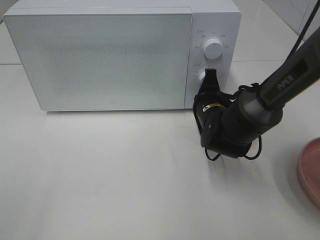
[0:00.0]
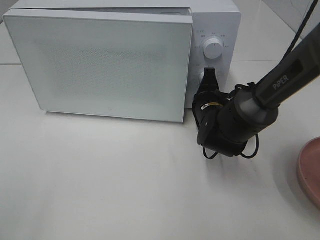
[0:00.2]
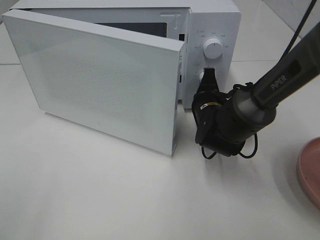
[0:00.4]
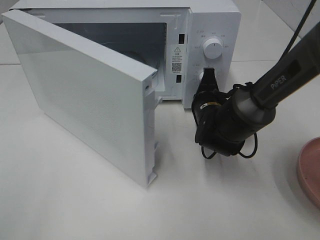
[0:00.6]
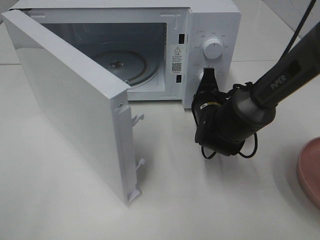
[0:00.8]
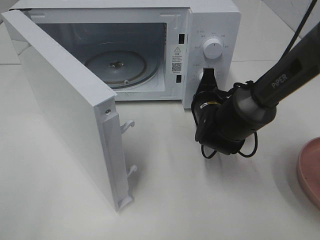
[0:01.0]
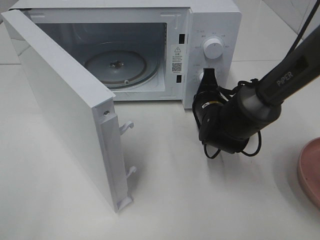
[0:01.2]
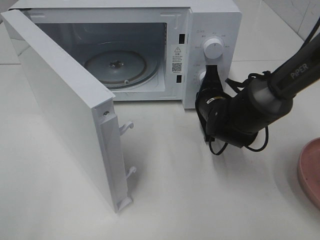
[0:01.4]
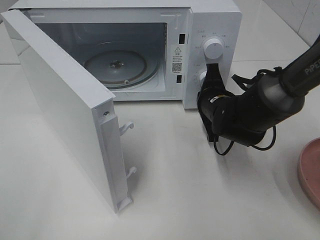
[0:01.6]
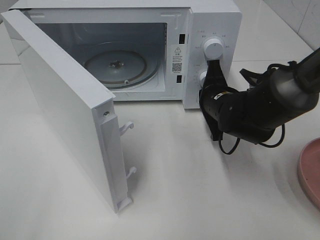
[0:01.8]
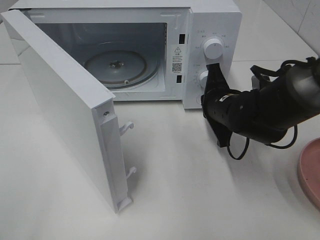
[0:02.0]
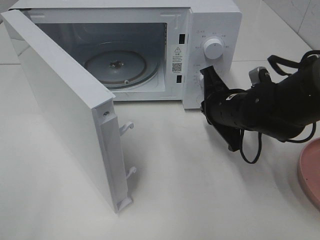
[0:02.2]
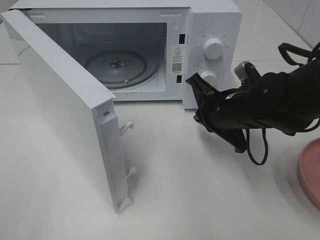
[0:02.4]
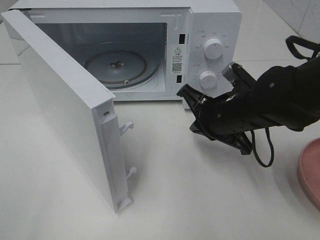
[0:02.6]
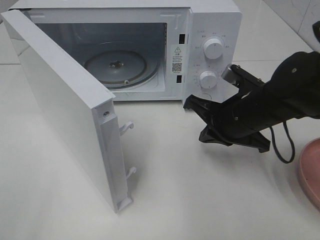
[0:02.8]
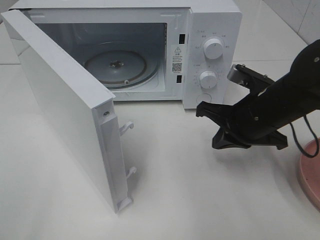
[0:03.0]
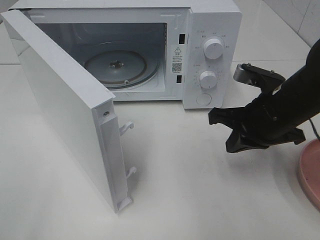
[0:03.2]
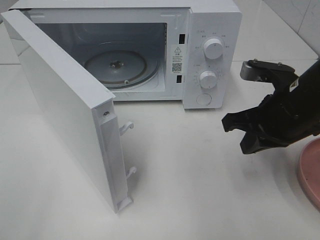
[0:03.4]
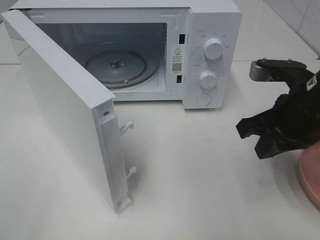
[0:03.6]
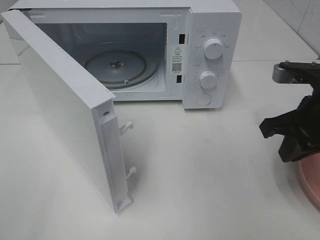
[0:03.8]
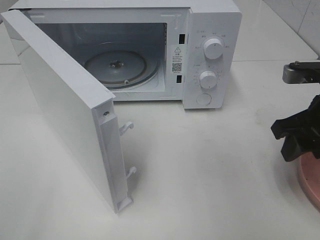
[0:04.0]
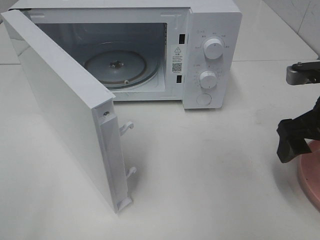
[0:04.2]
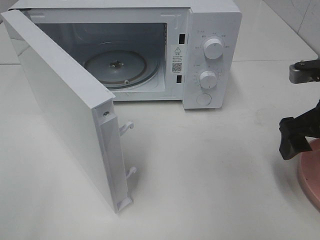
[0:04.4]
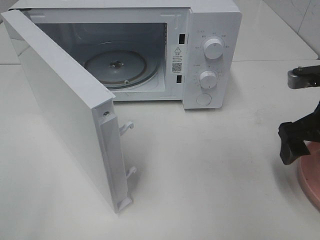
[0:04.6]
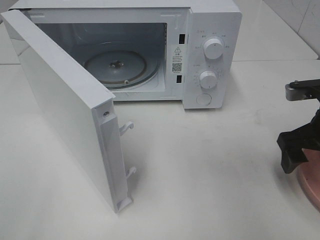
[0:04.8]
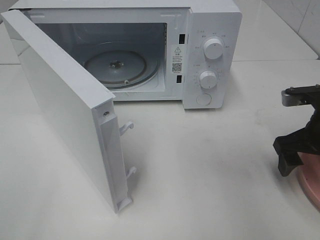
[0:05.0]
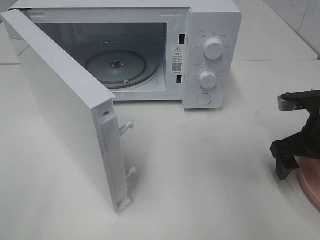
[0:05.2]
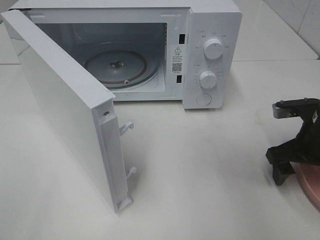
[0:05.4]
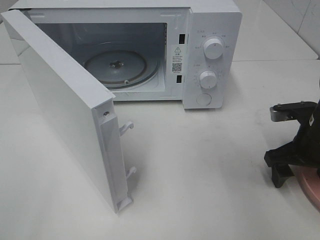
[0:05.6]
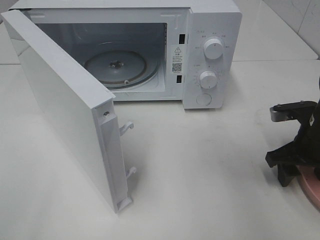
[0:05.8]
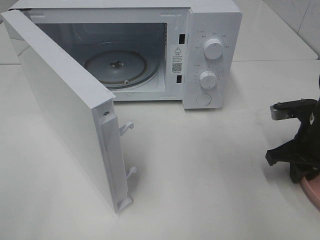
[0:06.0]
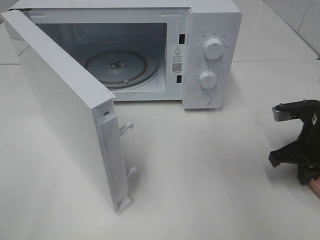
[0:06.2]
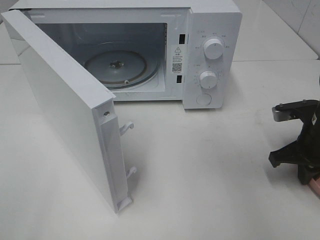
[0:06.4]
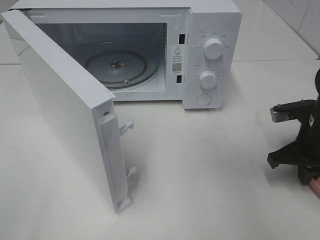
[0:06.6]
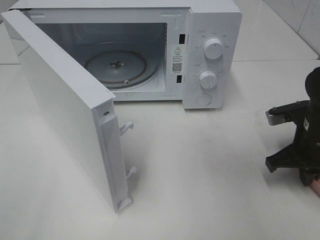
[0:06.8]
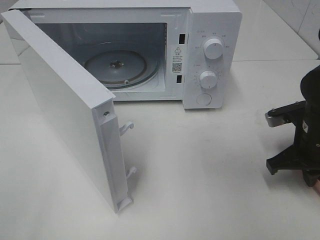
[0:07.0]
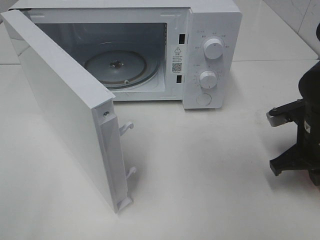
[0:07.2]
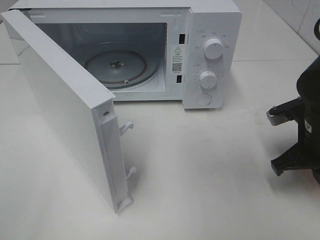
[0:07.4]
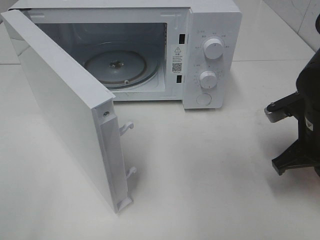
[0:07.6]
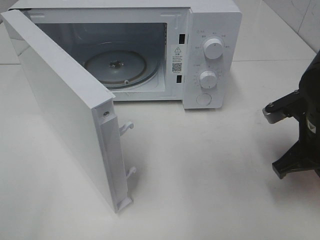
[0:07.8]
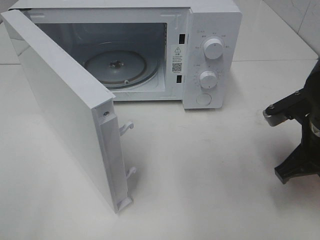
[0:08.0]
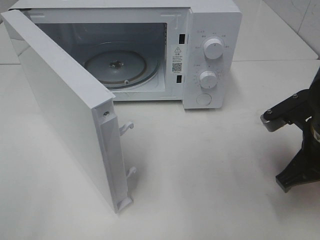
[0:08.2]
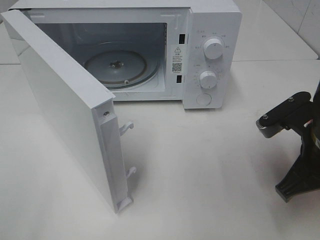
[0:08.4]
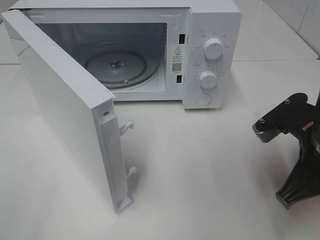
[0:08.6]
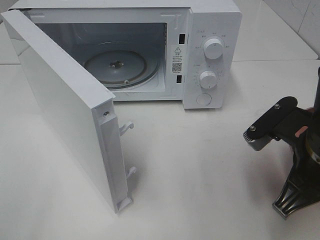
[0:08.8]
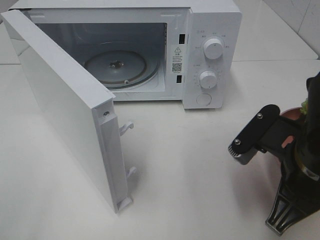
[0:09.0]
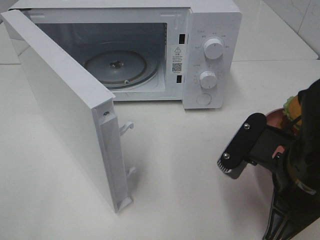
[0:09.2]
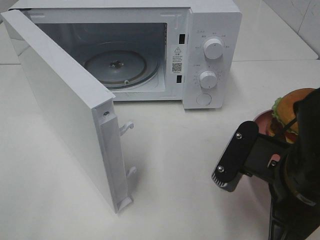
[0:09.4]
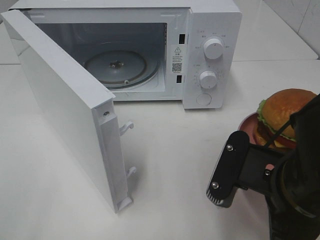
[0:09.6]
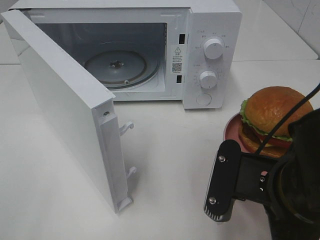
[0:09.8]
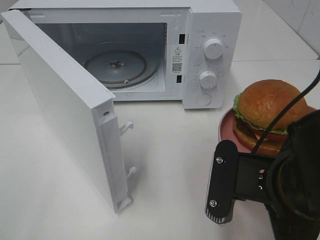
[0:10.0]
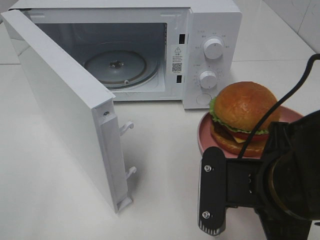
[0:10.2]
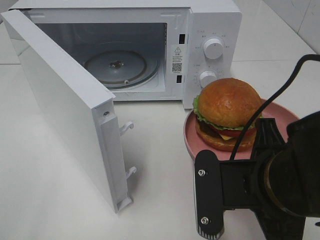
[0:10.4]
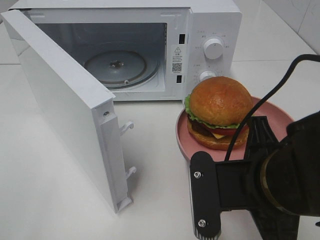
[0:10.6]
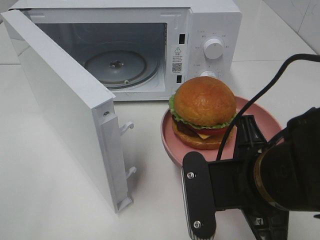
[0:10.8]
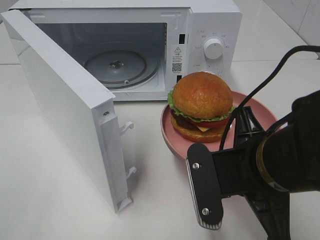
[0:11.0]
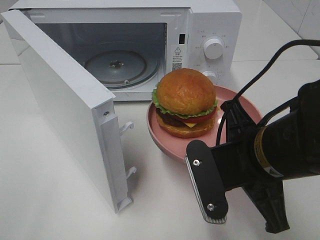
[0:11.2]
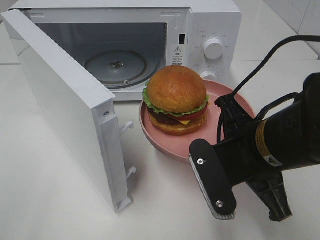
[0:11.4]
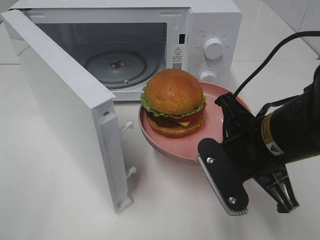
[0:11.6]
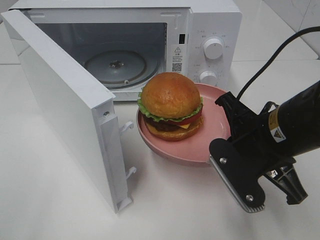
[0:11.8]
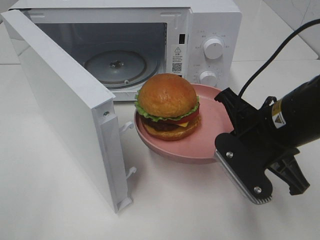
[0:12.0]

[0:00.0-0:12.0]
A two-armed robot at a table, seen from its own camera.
Task of the whole recording: Heat the burger.
Step, 0:01.8 to 0:06.4: Right hand: grab the plate with the hamburger.
0:01.6 to 0:03.0: The right gripper shifts roughly 10 cm backward and upward.
0:03.0 to 0:04.4: The right gripper moves to the right, approximately 10 cm, and opens its fingers.
0:04.4 to 0:06.0: The right gripper moves downward, some 10 cm, and closes its fingers.
0:06.0 to 0:07.6: The right gripper changes place by about 5 cm.
0:07.6 to 0:09.0: The right gripper heads backward and to the left, covering some 10 cm.
0:09.0 to 0:10.4: The right gripper changes place by approximately 5 cm.
0:10.4 to 0:12.0: The right gripper moves forward, approximately 10 cm.

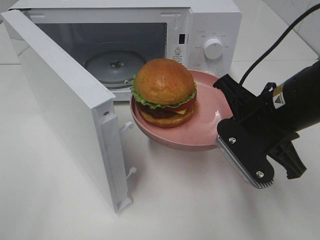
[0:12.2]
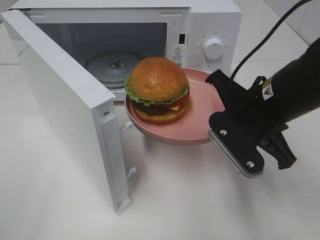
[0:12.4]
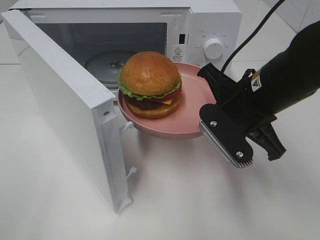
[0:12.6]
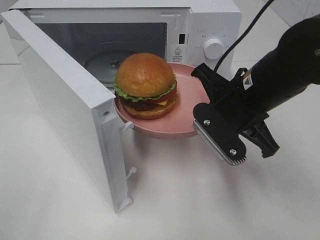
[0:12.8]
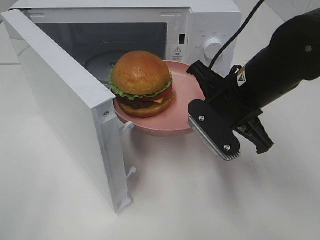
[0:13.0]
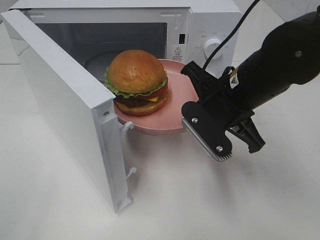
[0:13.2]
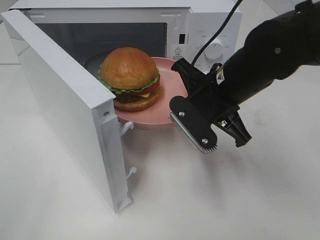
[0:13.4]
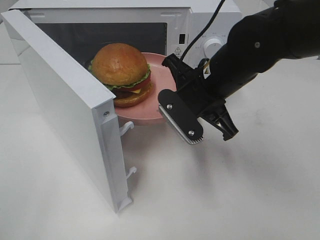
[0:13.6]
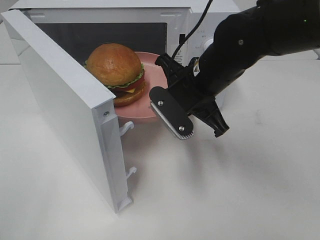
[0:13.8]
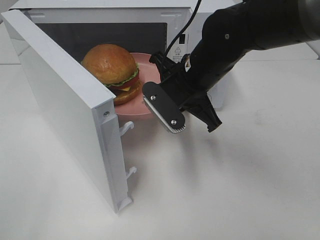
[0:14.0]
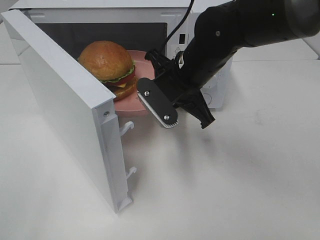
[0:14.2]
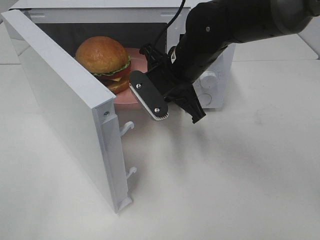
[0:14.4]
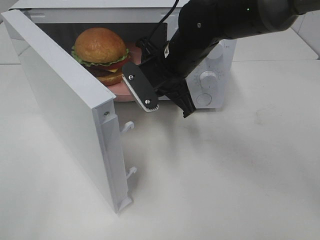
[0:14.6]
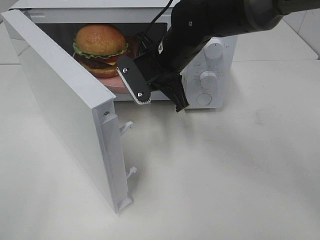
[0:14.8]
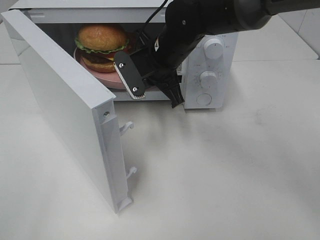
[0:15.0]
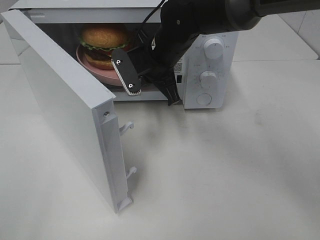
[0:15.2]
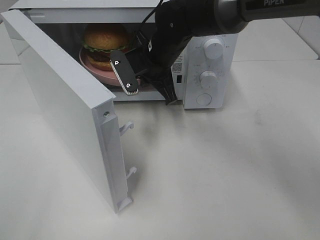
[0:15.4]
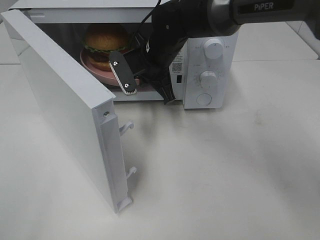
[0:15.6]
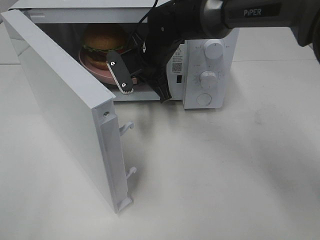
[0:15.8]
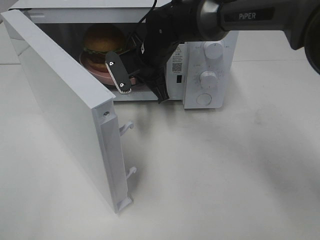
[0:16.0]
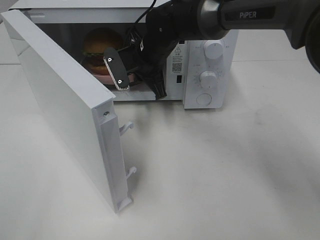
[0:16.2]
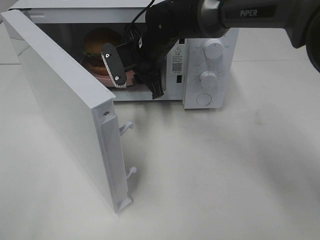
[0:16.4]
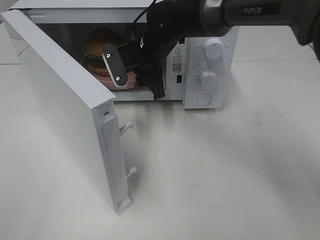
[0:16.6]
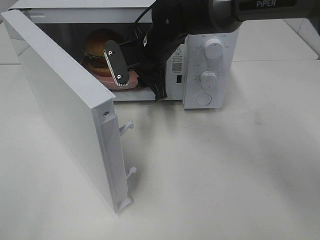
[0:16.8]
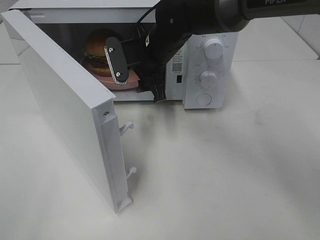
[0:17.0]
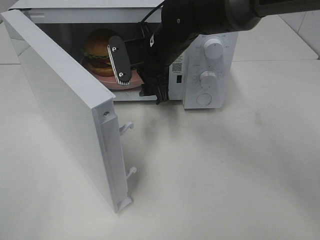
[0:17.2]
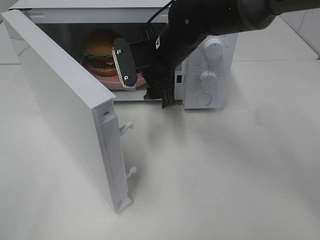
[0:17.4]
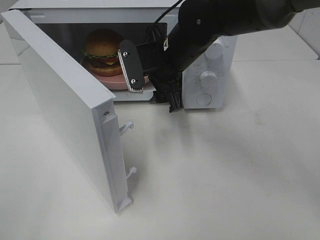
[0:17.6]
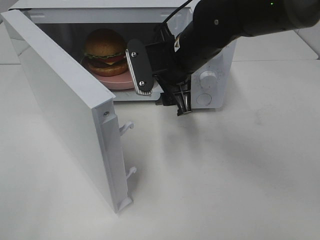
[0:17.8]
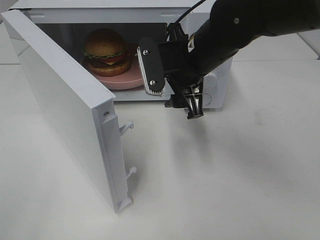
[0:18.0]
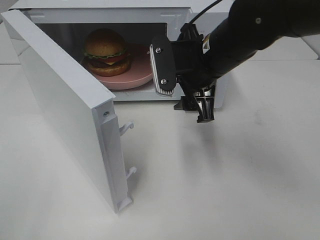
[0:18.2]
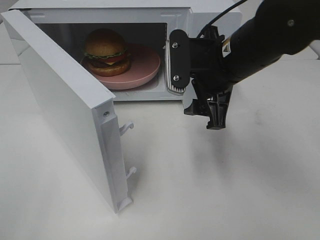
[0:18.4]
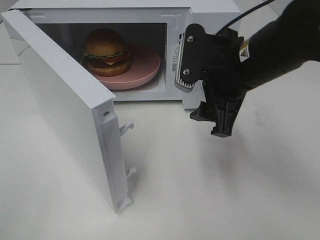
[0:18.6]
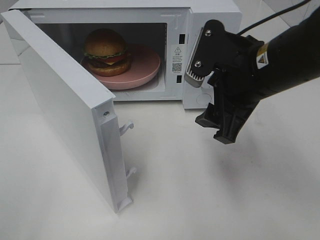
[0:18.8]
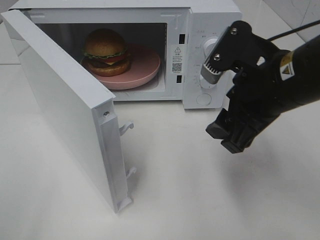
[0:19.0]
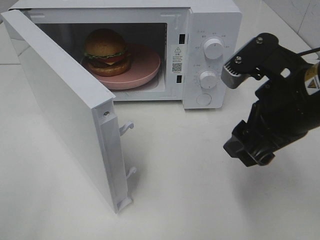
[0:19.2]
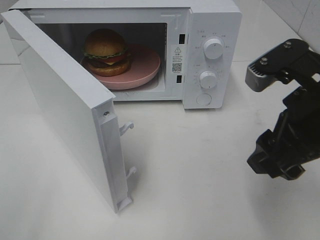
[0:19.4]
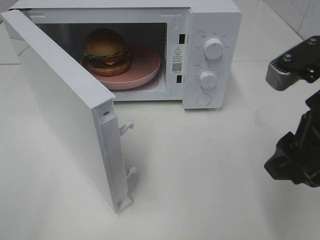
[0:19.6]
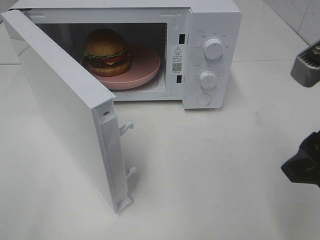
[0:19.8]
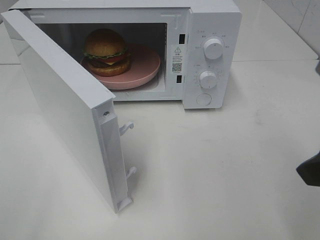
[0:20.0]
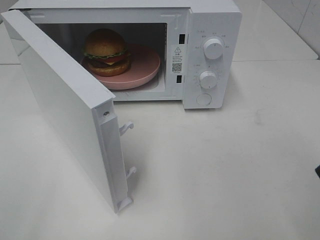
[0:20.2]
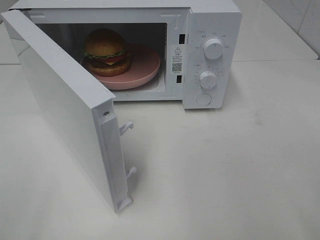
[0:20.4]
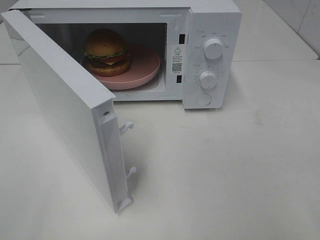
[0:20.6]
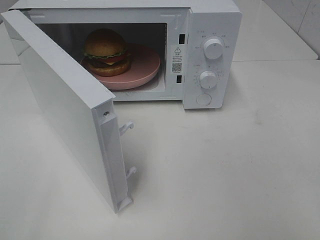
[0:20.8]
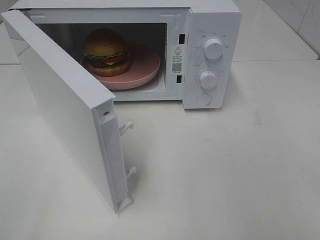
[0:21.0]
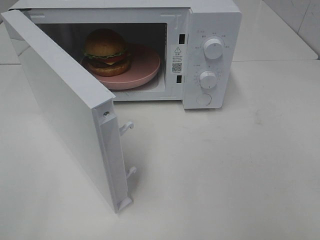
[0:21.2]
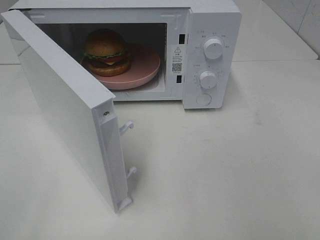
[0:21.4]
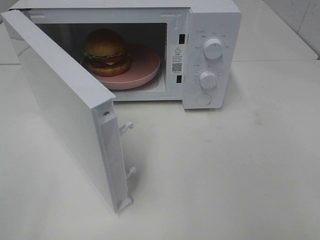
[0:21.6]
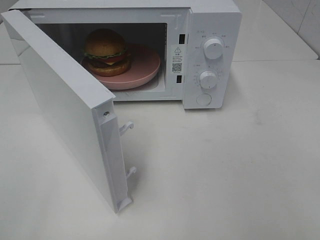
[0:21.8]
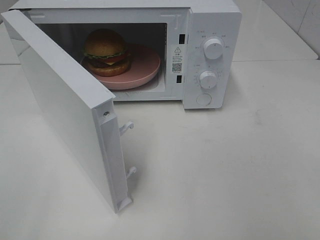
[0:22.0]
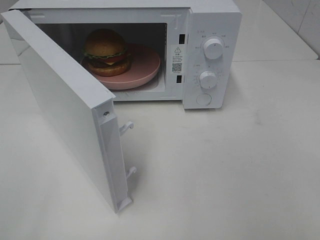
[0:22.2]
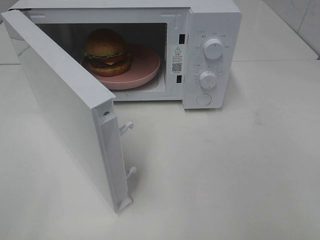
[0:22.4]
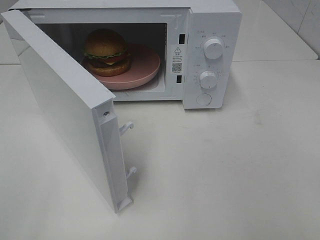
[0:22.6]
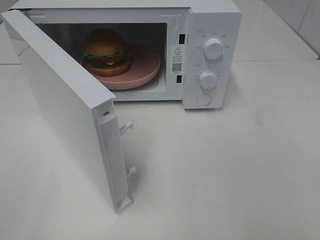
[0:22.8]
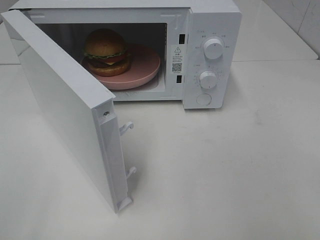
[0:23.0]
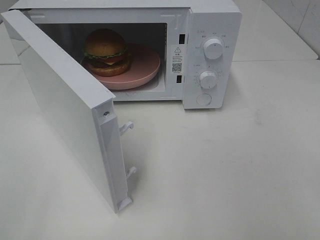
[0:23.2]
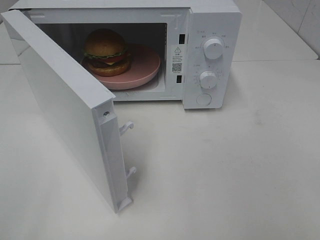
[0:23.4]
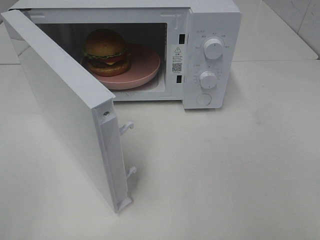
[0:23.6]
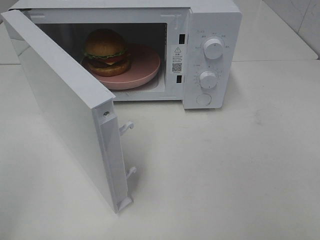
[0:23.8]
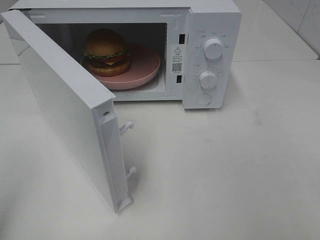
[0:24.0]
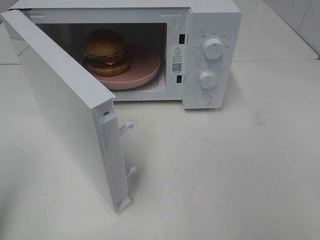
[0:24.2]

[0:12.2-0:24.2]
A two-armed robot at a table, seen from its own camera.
Task of the whole recording: Heat the burger.
Step, 0:12.2 to 0:16.4: Right hand: place the plate in the microwave.
0:12.2 to 0:13.8: The right gripper moves forward and to the left, approximately 10 cm.
0:13.8 to 0:15.2: The right gripper heads forward and to the left, covering roughly 10 cm.
0:15.2 to 0:16.6: The right gripper opens up.
0:16.6 to 0:18.2: The right gripper travels backward and to the right by approximately 15 cm.
0:18.2 to 0:19.8: The right gripper goes about 20 cm backward and to the right.
0:19.8 to 0:21.2: The right gripper heads backward and to the right, covering approximately 15 cm.
